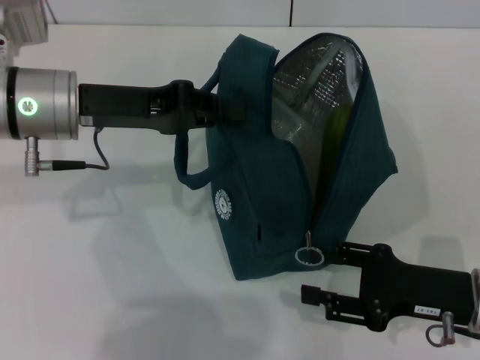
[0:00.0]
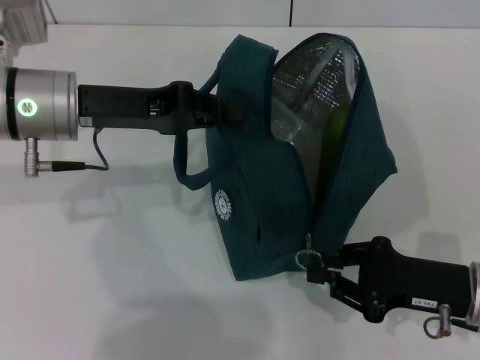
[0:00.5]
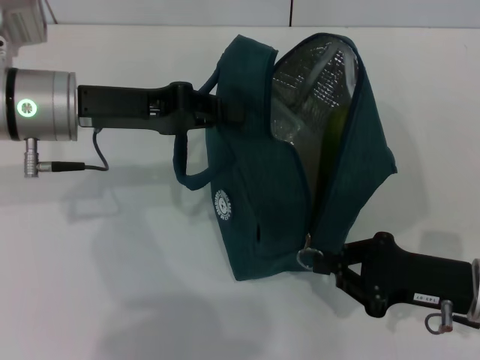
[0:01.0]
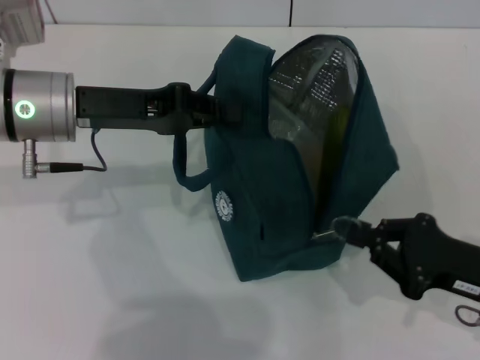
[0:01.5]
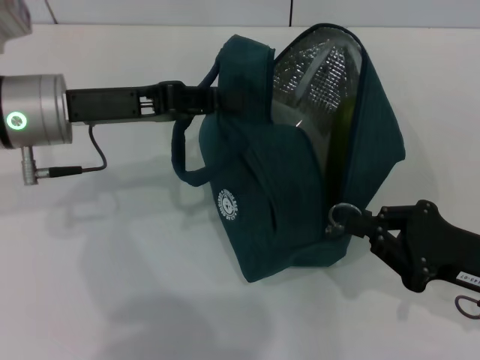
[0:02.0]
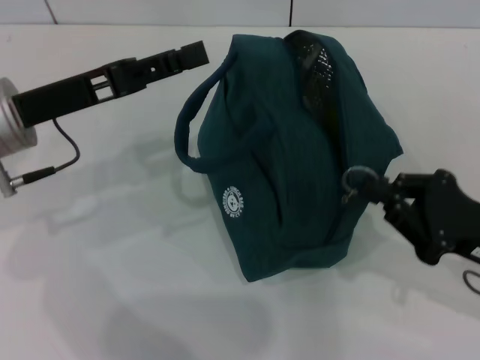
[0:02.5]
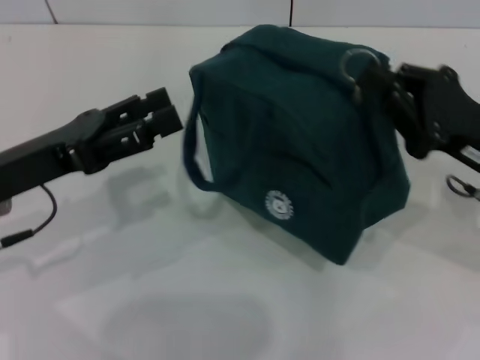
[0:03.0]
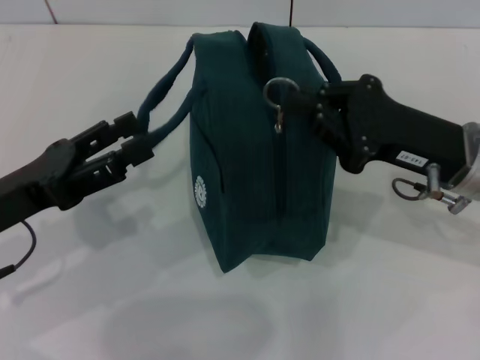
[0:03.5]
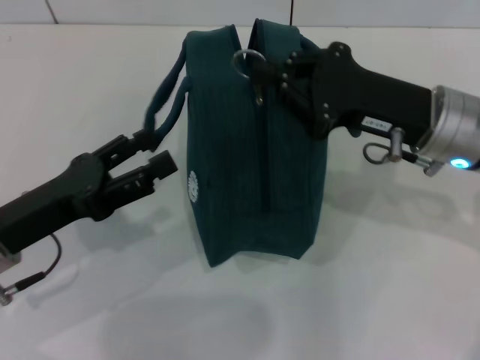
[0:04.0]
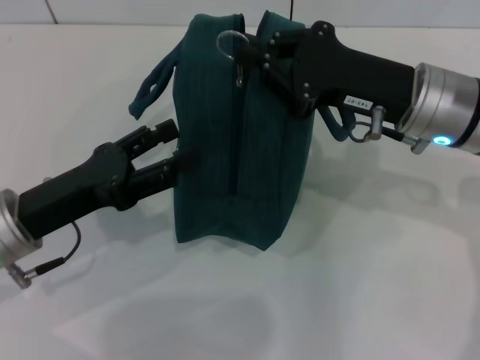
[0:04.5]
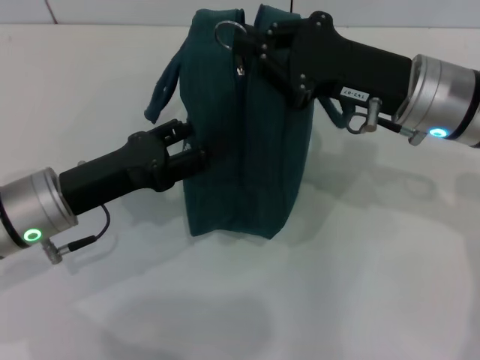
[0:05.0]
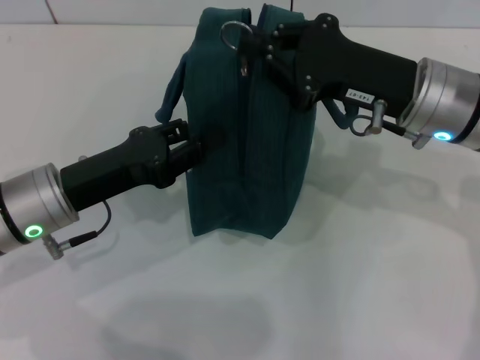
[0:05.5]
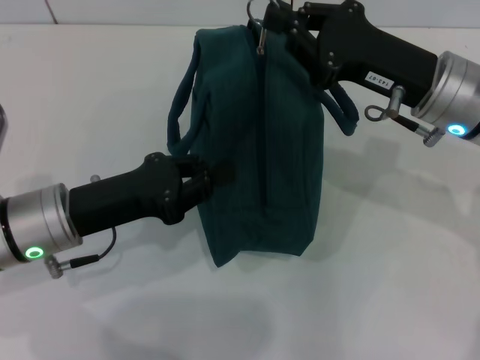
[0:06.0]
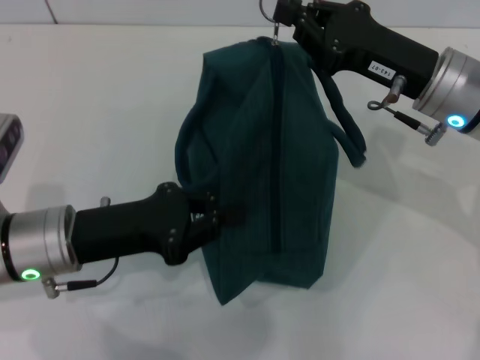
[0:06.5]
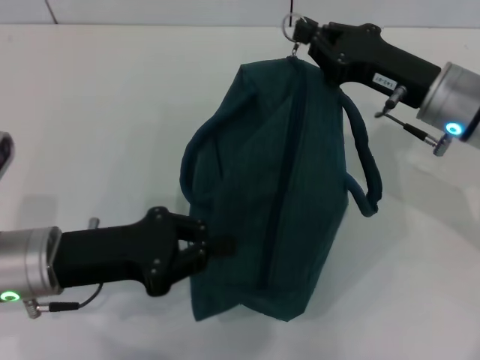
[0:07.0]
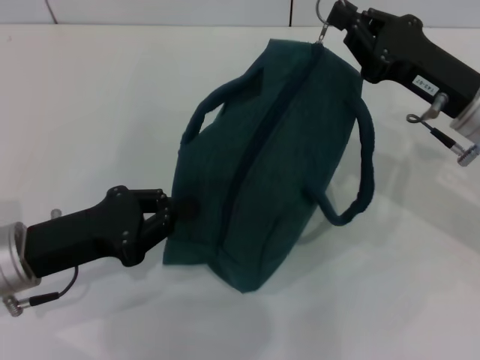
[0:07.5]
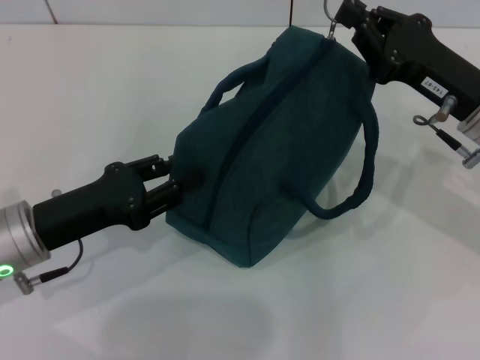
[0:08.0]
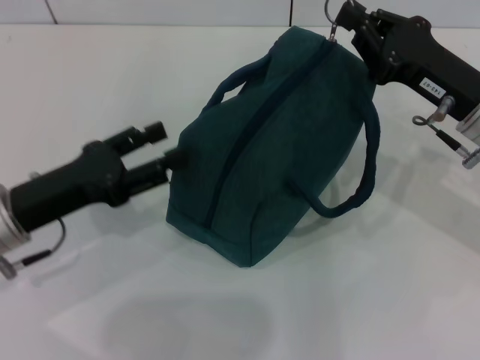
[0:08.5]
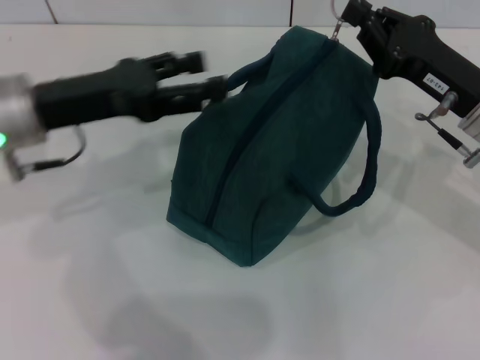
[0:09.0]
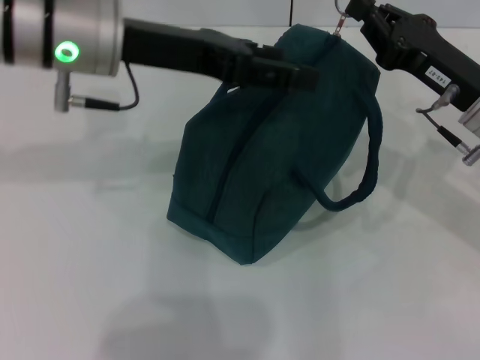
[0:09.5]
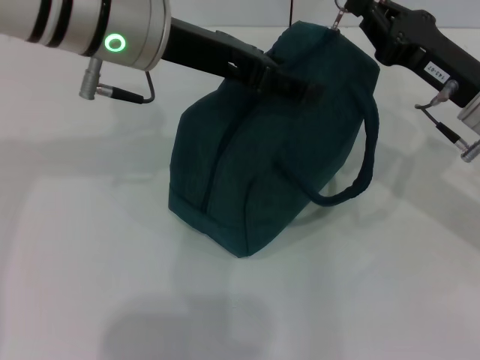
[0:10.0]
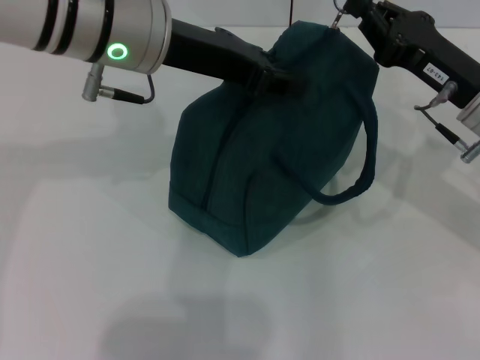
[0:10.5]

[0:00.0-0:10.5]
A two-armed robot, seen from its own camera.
Step, 0:00.0 to 0:02.0: Hold the lunch bag with your left hand.
0:00.0 to 0:02.0: The right gripper closes.
0:02.0 to 0:04.0: The right gripper moves forward, to the left and upward, some 15 cm. Meanwhile the left gripper shifts roughly 15 cm backward and downward, and opens.
0:04.0 to 0:06.5: The left gripper moves roughly 5 cm, and closes up.
0:06.5 to 0:08.5: The left gripper opens.
0:08.5 to 0:10.5: The left gripper travels upward, to the right and forward by roughly 25 cm.

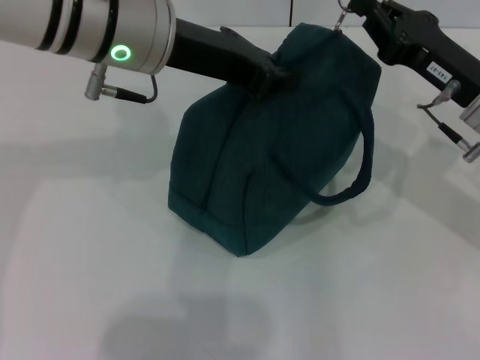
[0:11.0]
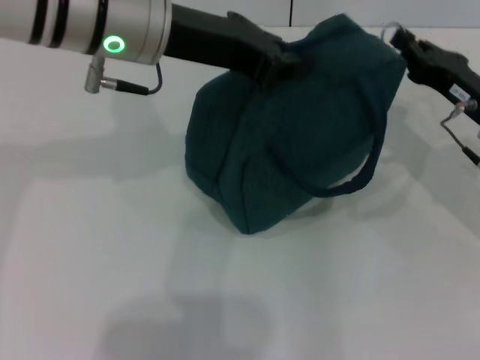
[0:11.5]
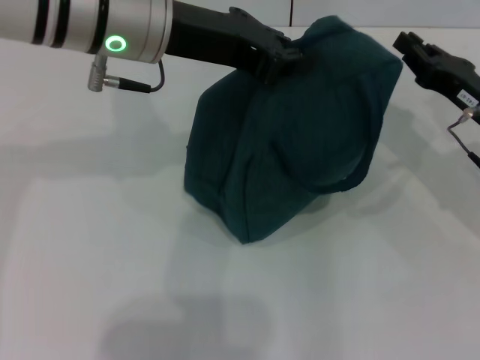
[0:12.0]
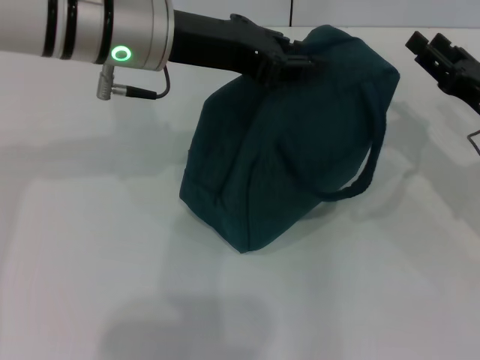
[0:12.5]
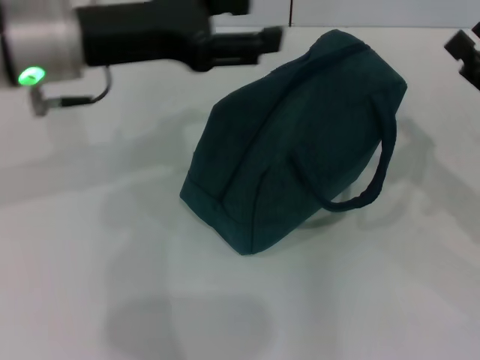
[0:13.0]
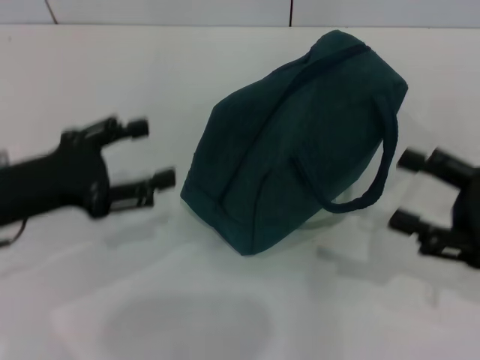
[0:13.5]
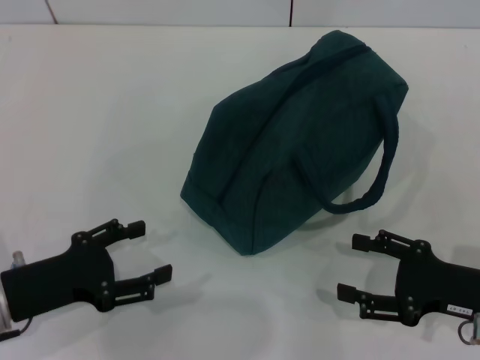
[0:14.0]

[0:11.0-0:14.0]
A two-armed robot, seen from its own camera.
0:11.0 to 0:12.5: The right gripper shifts approximately 5 cm to the right, and opens its fingers.
0:12.5 to 0:14.0: The right gripper goes some 10 cm backward and downward, and opens. Meanwhile the left gripper heads downward, backward and to the left, covering about 30 cm, and opens up.
